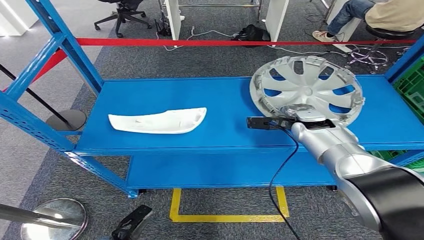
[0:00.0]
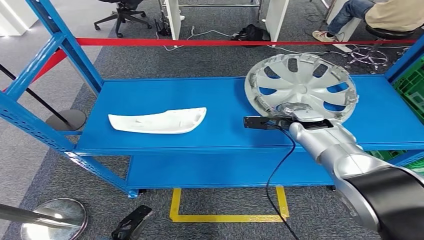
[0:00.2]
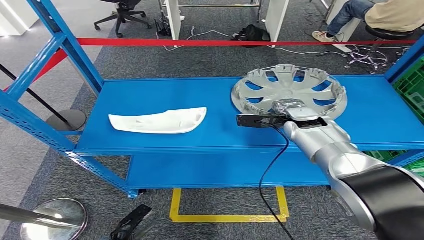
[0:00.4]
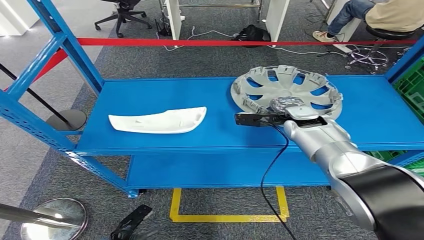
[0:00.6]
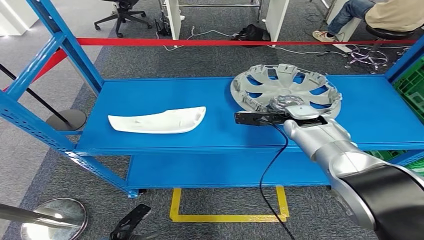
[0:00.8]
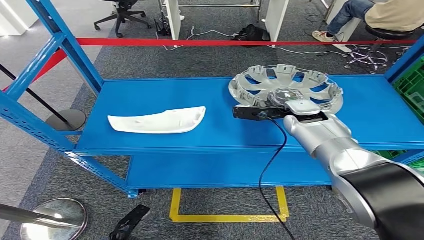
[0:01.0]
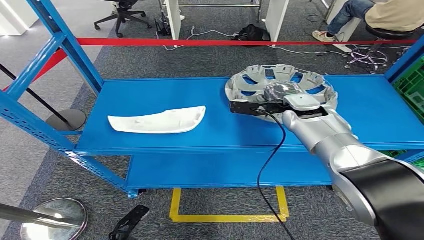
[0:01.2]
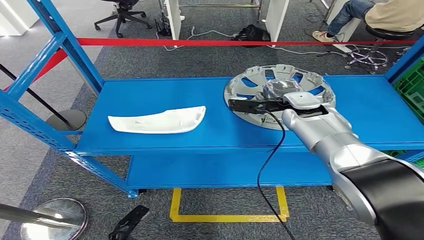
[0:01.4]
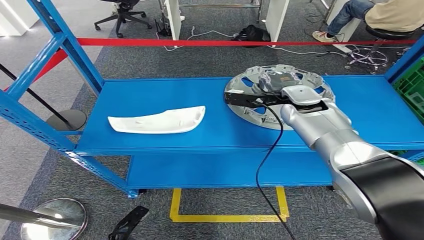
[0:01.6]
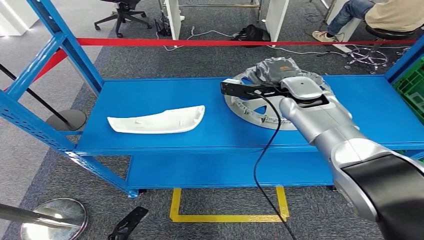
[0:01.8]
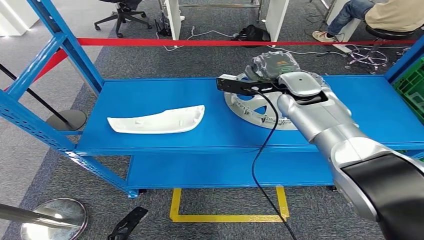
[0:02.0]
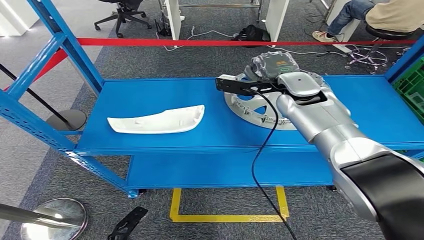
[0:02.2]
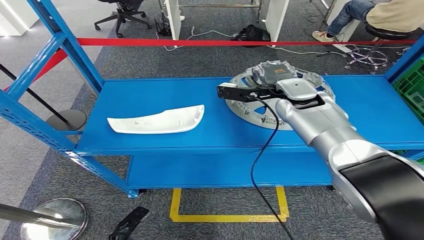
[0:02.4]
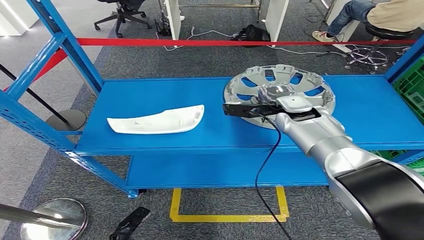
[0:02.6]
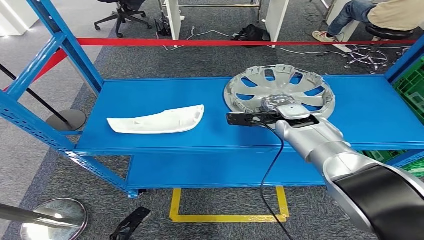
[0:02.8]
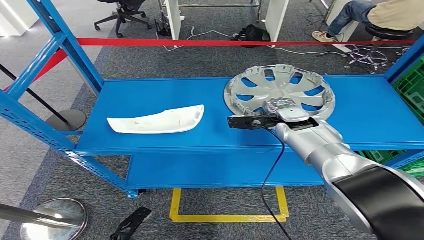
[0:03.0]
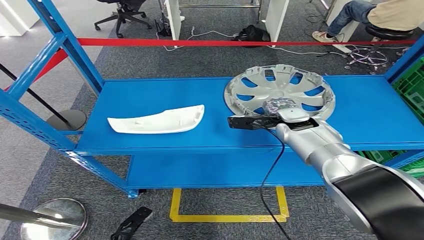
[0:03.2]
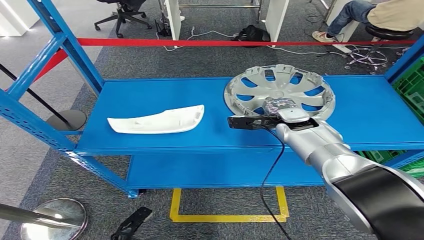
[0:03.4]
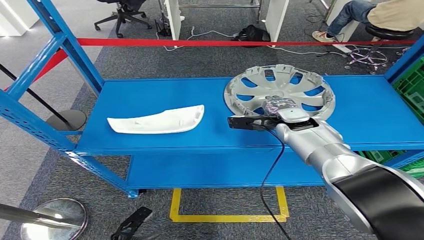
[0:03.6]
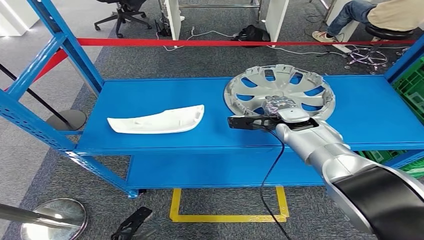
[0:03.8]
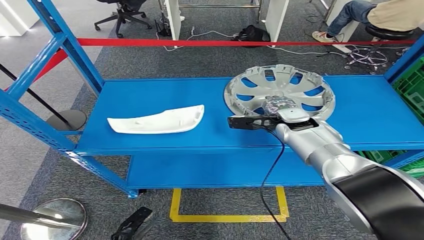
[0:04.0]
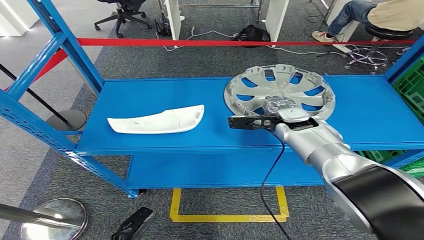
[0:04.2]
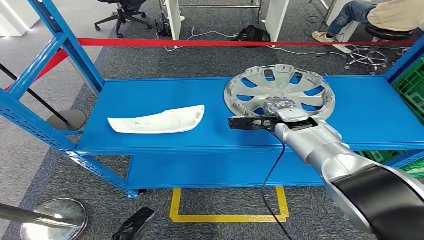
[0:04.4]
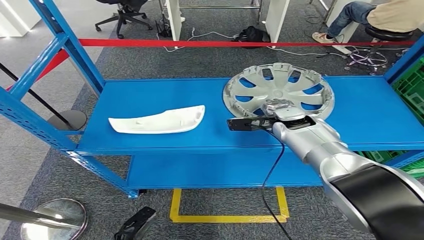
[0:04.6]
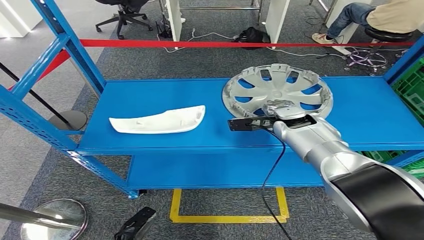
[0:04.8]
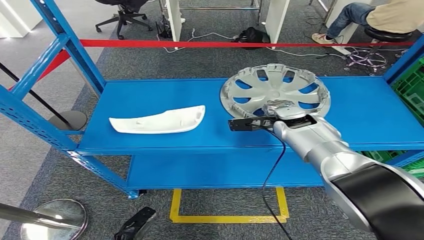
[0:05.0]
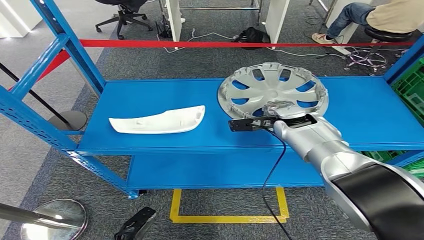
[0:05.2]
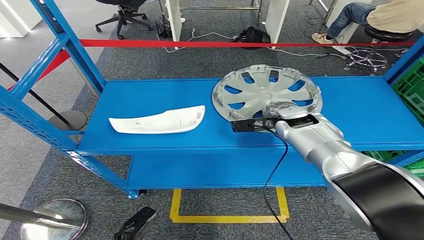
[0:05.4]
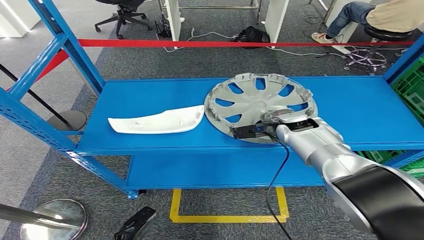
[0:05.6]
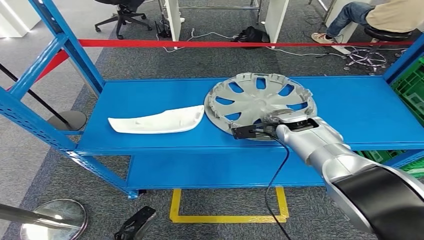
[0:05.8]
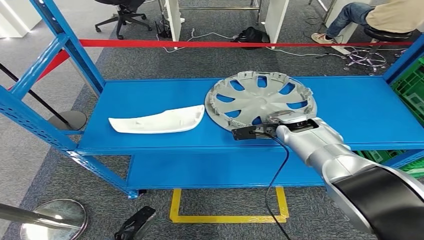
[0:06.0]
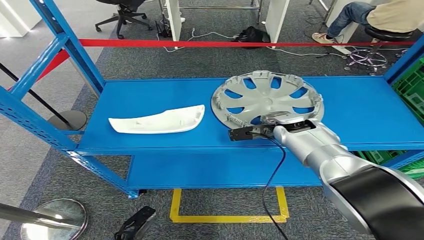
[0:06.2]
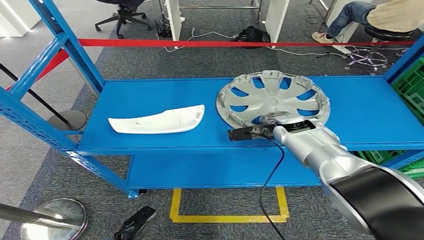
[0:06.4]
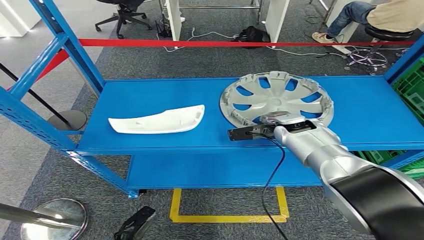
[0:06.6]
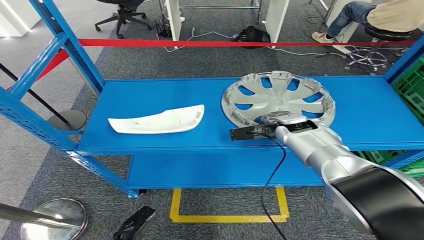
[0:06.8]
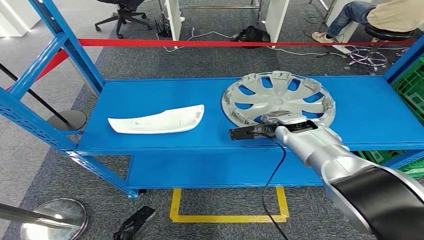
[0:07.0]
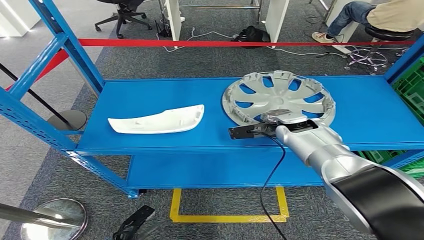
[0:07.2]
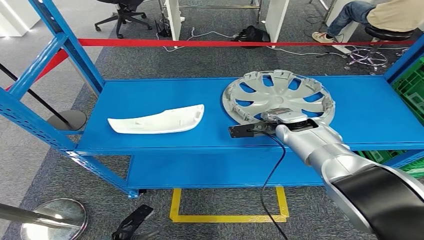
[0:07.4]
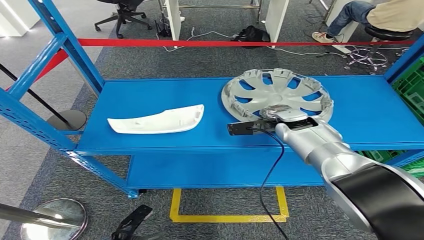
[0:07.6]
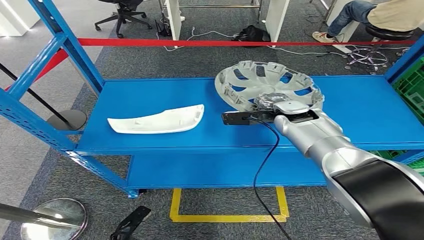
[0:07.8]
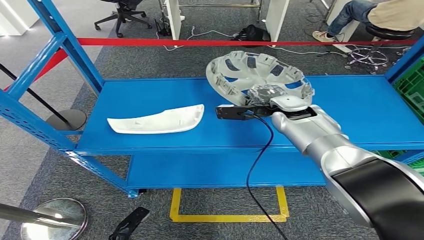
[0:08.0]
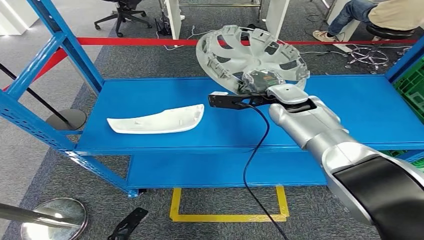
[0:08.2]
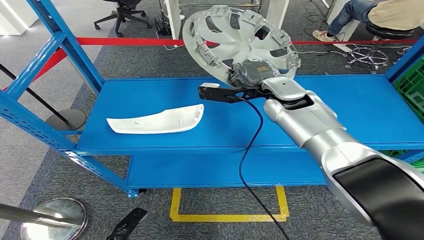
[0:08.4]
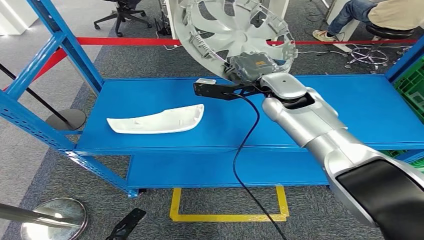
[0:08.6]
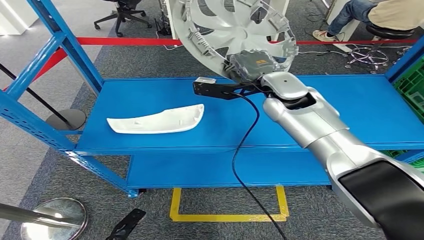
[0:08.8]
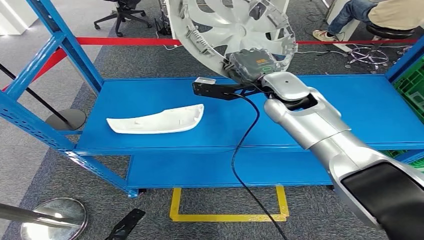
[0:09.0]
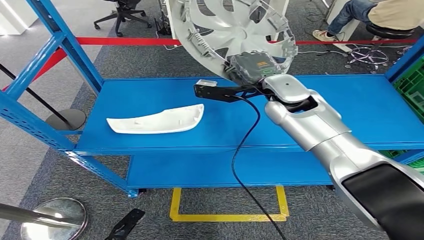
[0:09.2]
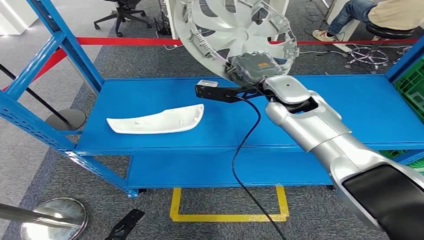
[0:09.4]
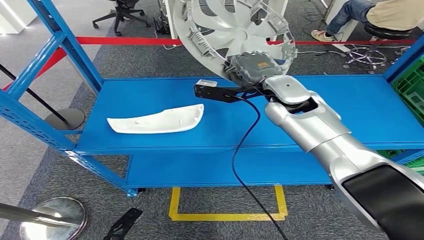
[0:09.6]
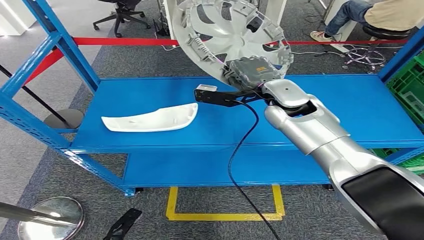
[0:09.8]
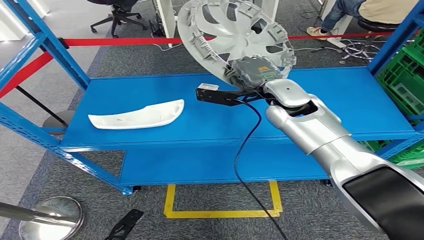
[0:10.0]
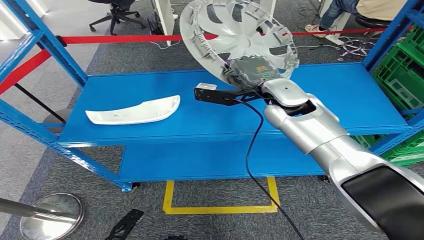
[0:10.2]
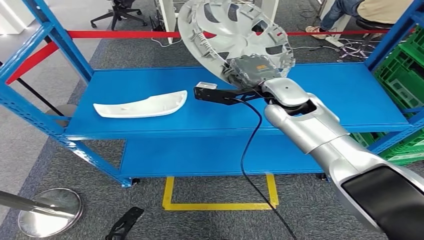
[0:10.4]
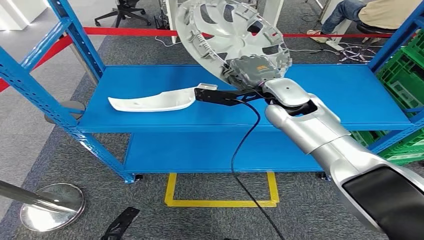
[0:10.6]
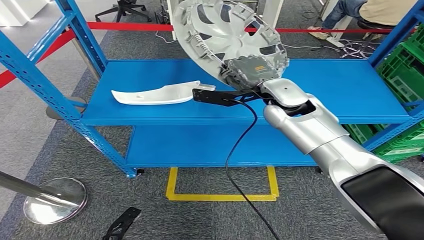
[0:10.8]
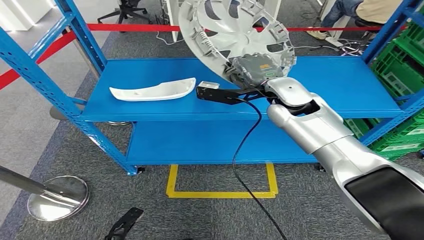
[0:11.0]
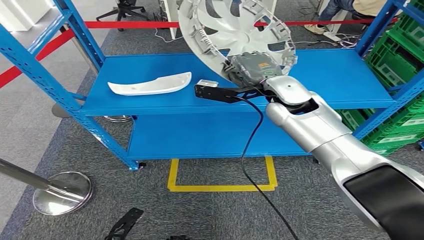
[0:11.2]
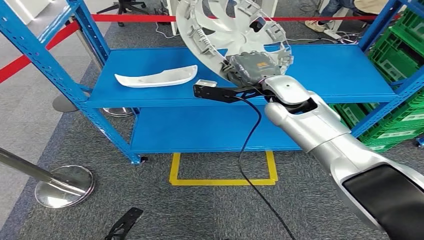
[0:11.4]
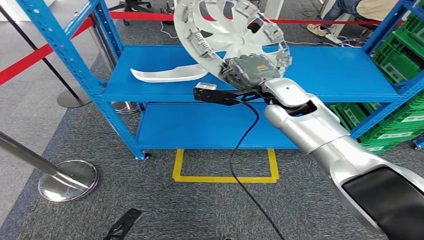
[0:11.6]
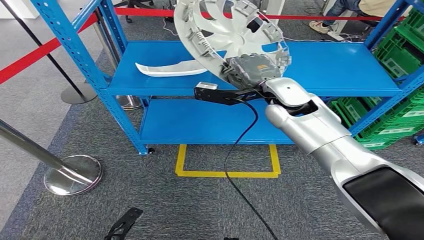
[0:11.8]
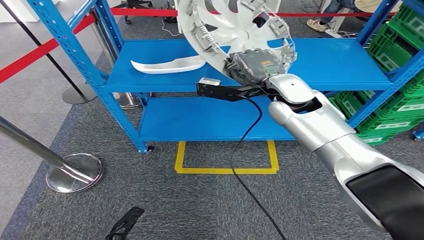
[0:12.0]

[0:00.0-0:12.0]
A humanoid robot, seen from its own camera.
Step, 0:00.0 to 0:09.0: Pick up the small component from the shelf.
0:00.0 to 0:01.6: The right hand travels upward by some 5 cm.
0:01.6 to 0:03.0: The right hand goes approximately 5 cm downward.
0:03.0 to 0:04.4: Both hands stay about where they are.
0:04.4 to 0:07.6: There are only small adjustments of the hands.

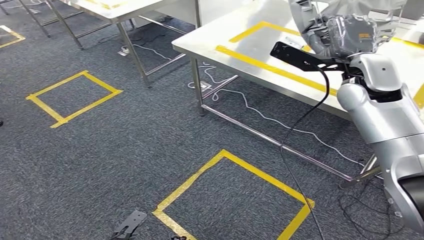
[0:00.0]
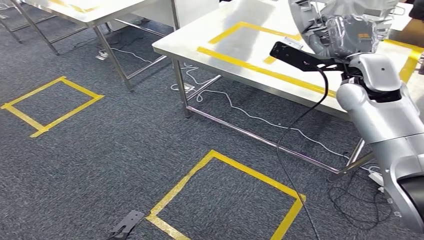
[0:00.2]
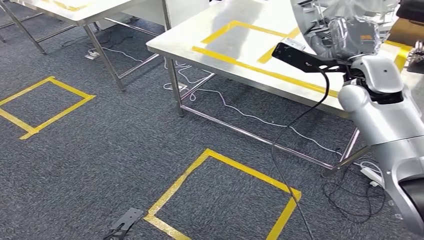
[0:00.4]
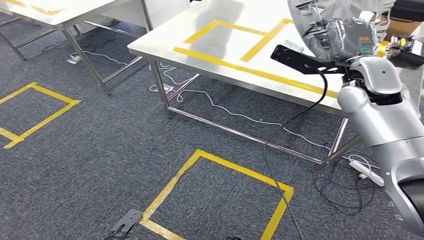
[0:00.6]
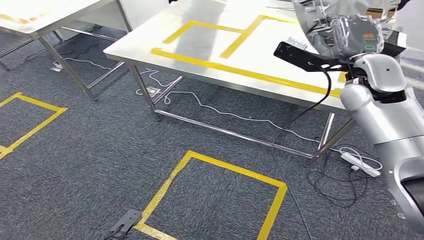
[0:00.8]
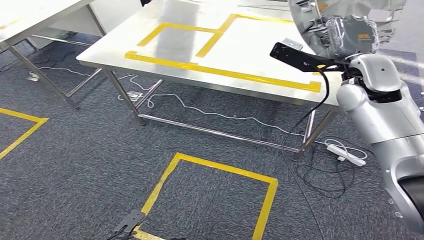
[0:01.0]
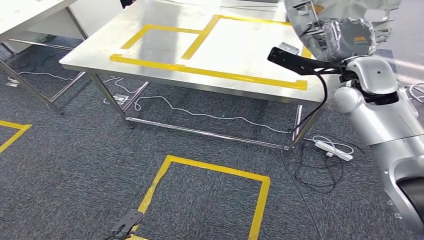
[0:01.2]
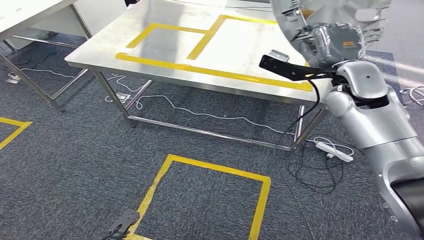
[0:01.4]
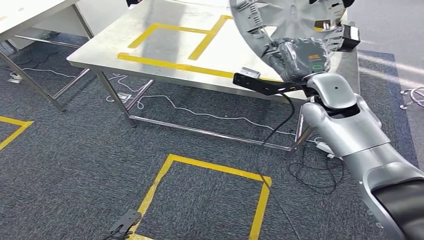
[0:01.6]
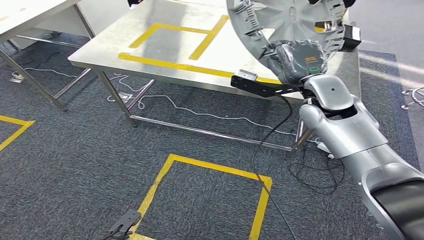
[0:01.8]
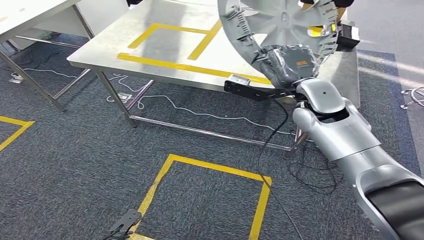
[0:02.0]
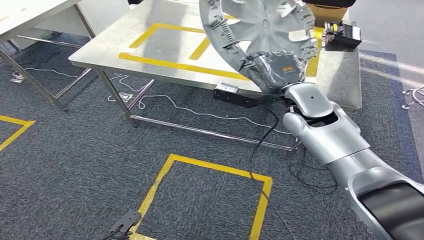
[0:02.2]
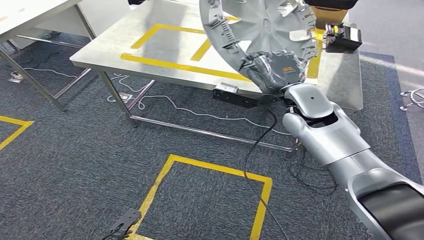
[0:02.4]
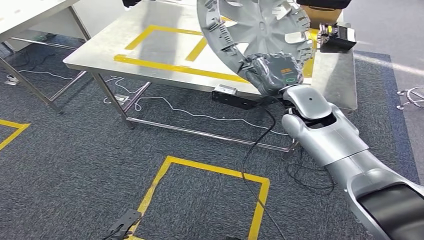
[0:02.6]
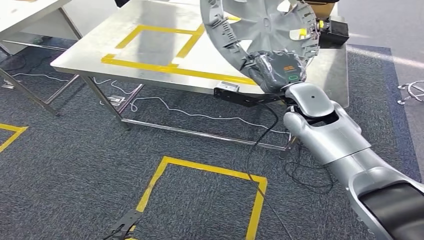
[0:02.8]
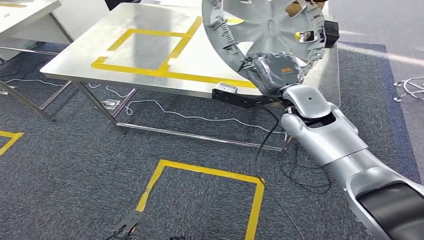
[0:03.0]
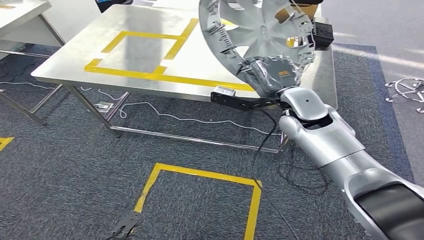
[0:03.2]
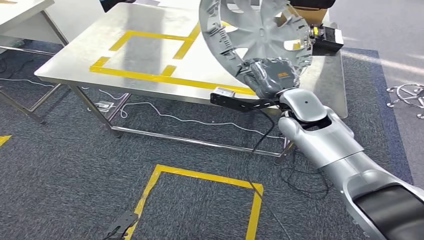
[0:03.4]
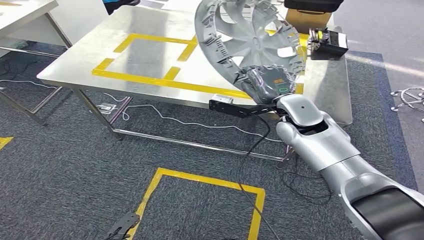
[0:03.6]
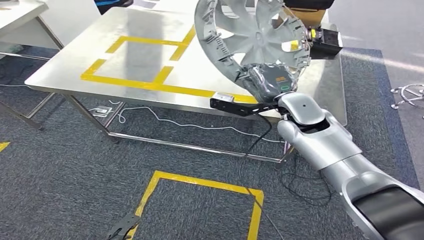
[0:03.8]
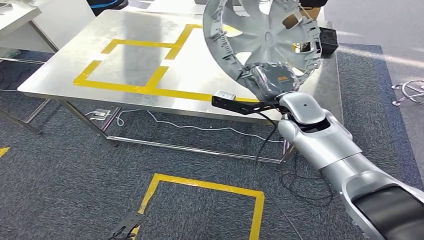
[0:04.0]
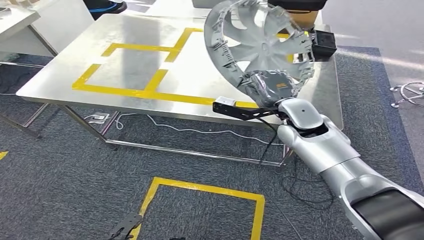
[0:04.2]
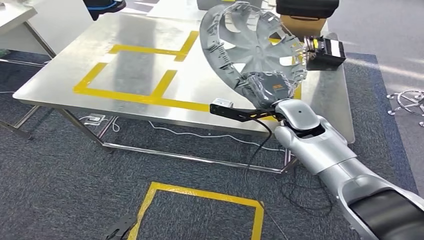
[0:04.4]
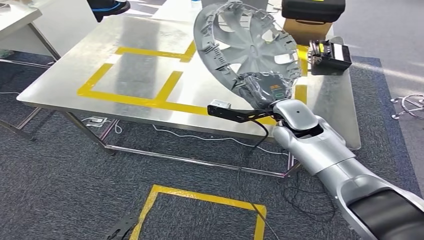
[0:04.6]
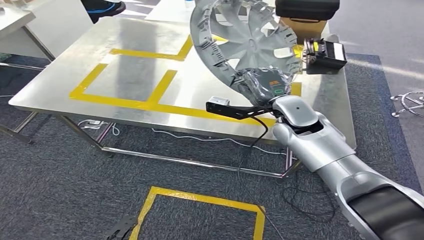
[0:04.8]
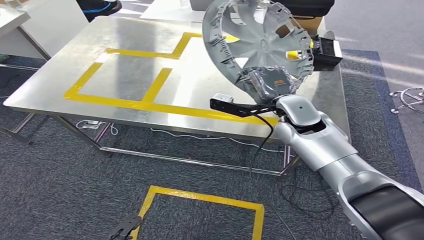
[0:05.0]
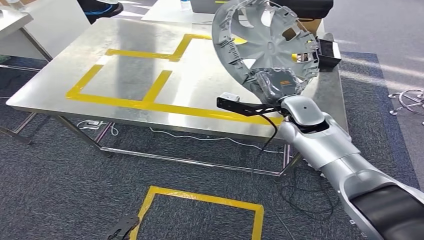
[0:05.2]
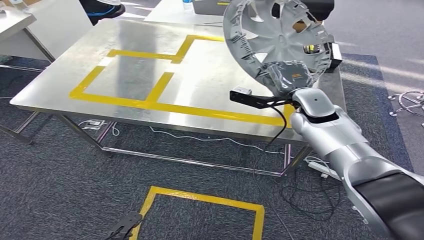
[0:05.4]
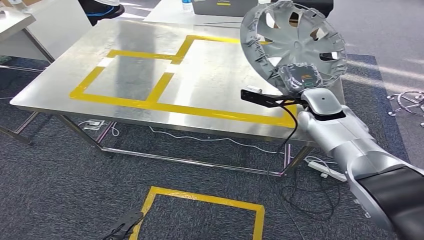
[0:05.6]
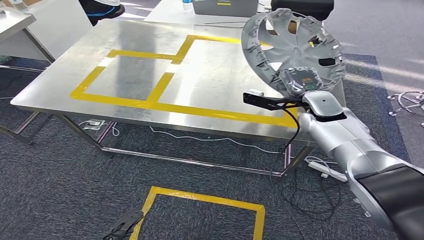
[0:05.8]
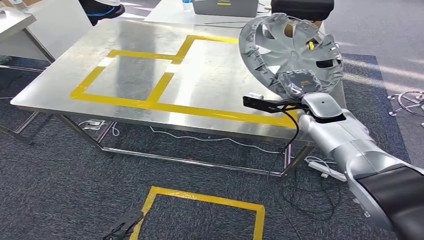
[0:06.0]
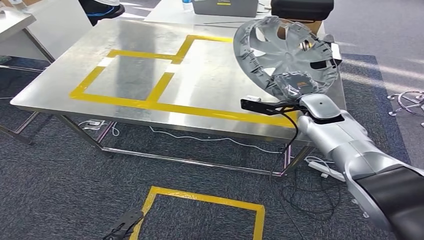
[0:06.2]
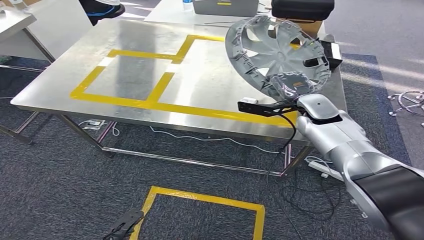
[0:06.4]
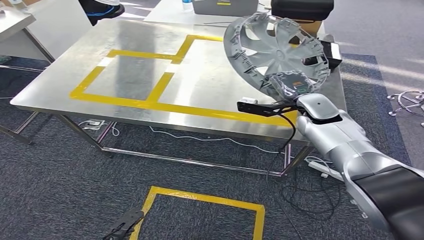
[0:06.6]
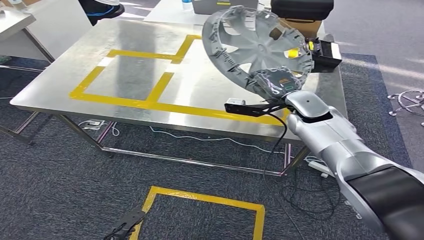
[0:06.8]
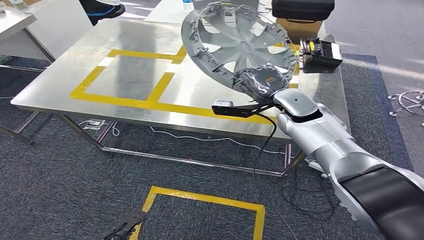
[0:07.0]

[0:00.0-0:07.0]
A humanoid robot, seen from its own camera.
0:05.6 to 0:07.0: The right hand changes place by approximately 5 cm.
